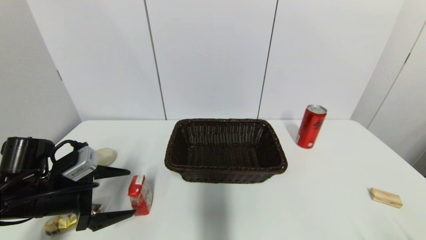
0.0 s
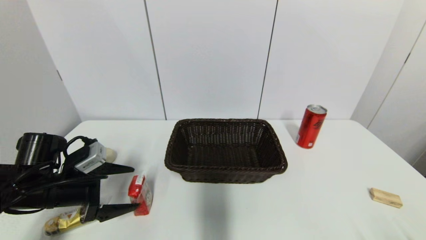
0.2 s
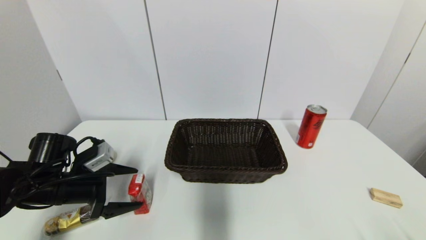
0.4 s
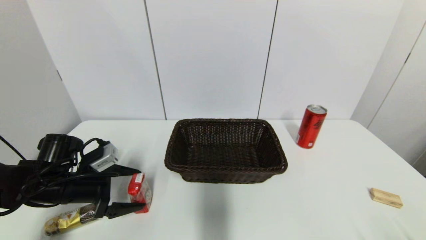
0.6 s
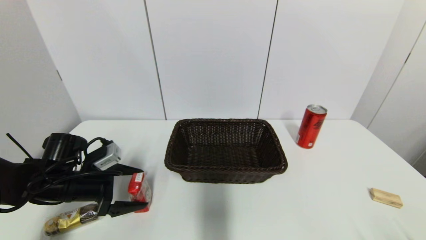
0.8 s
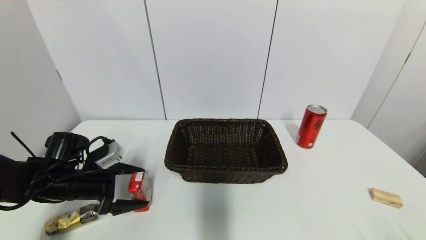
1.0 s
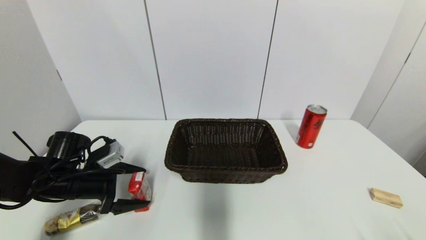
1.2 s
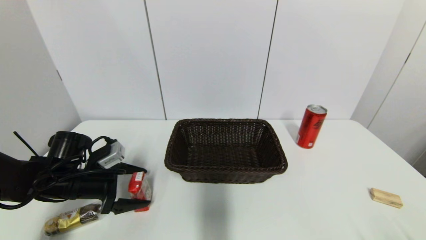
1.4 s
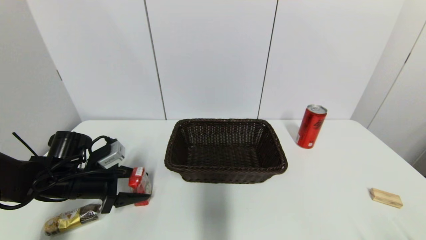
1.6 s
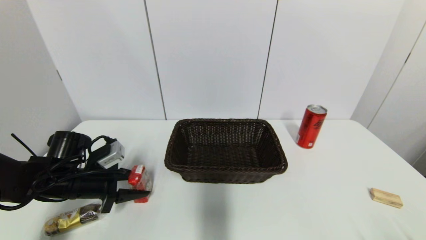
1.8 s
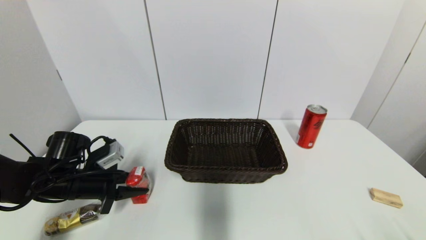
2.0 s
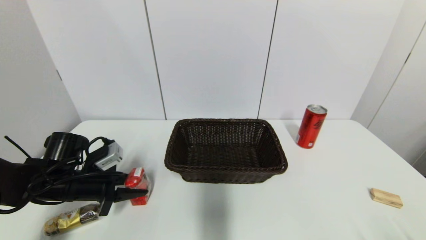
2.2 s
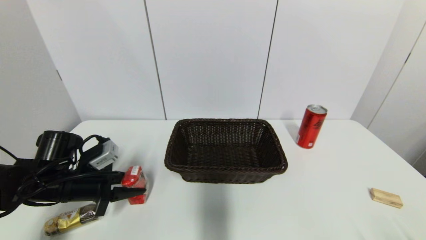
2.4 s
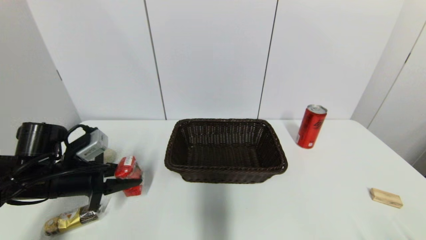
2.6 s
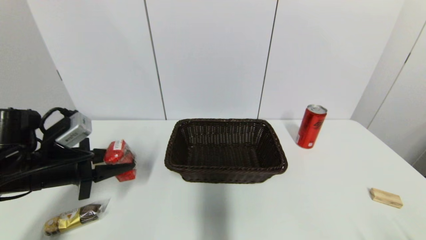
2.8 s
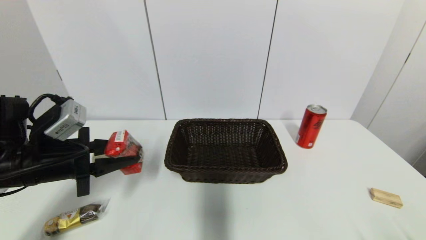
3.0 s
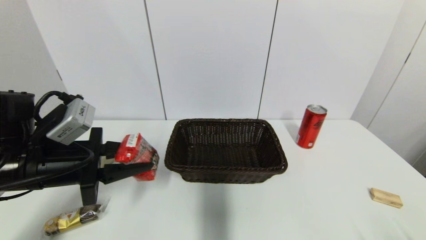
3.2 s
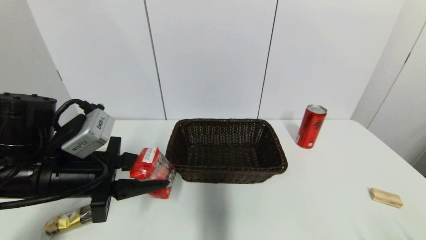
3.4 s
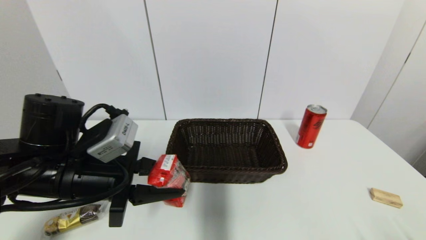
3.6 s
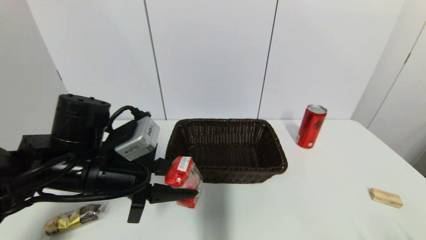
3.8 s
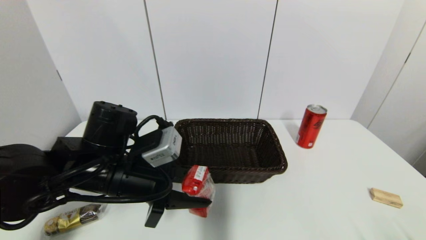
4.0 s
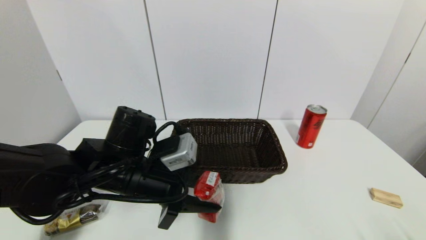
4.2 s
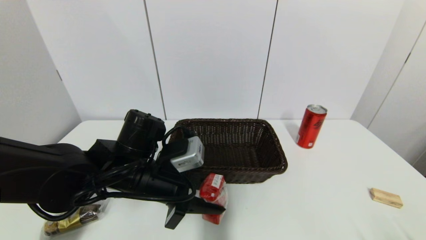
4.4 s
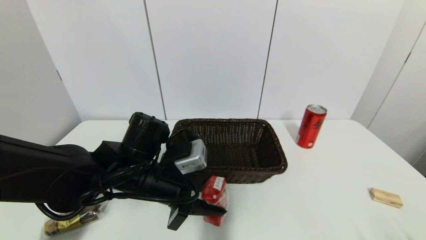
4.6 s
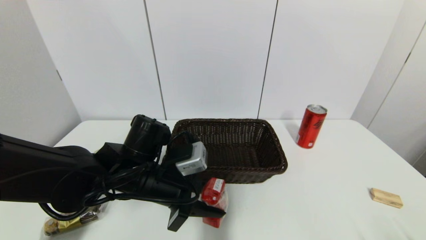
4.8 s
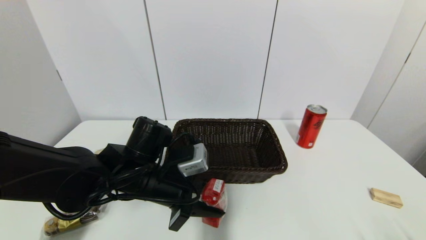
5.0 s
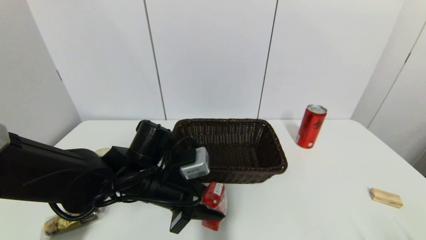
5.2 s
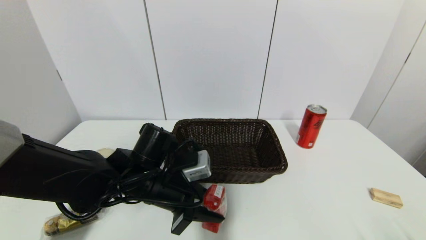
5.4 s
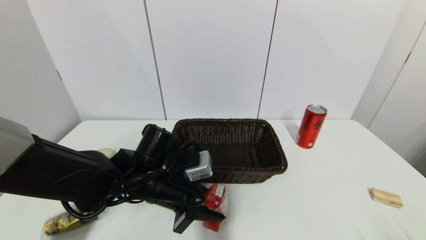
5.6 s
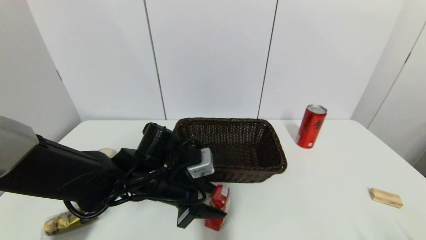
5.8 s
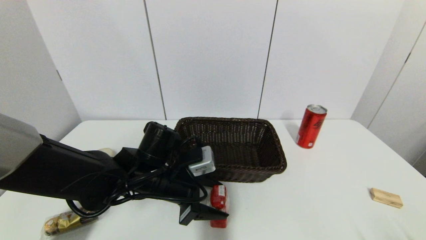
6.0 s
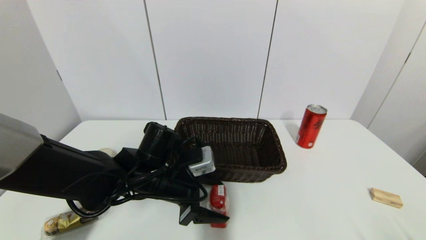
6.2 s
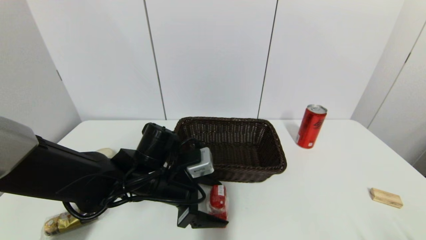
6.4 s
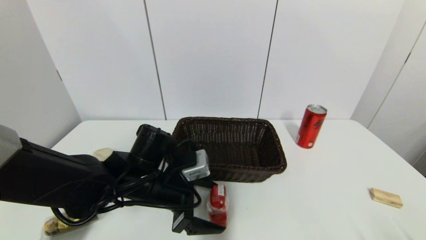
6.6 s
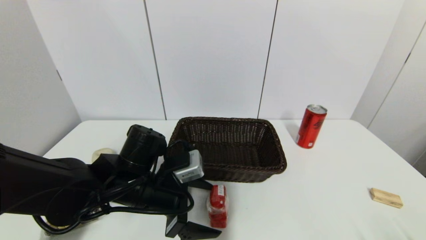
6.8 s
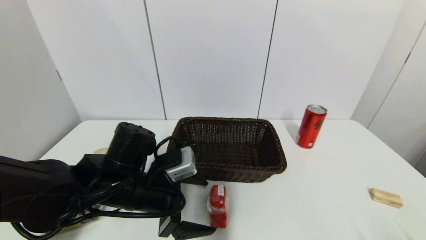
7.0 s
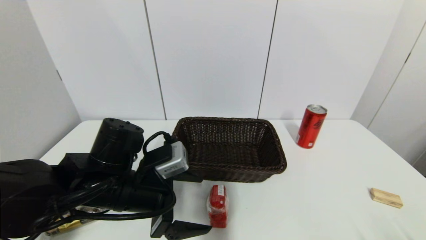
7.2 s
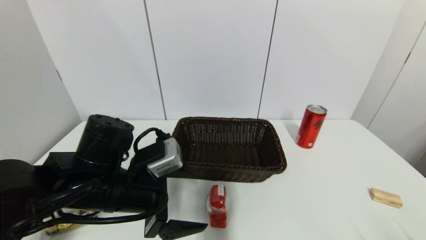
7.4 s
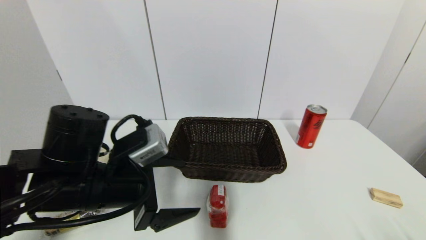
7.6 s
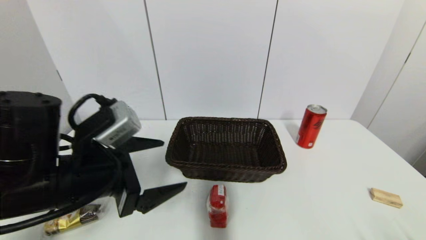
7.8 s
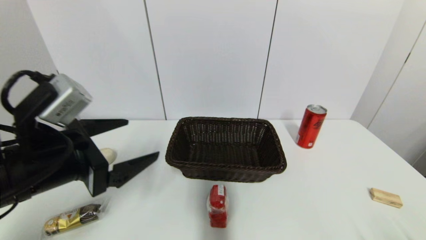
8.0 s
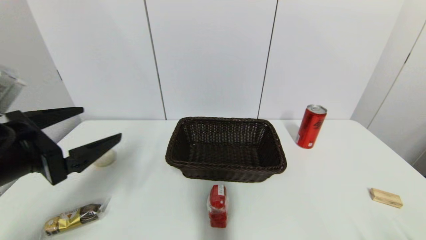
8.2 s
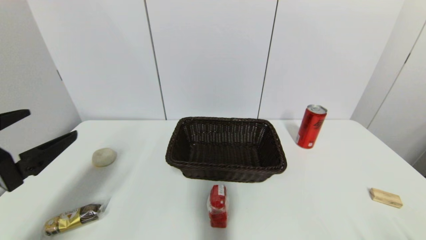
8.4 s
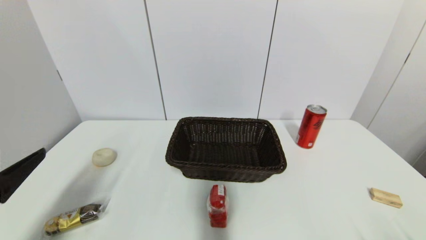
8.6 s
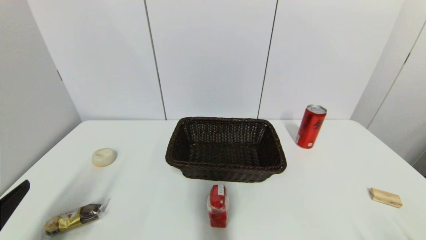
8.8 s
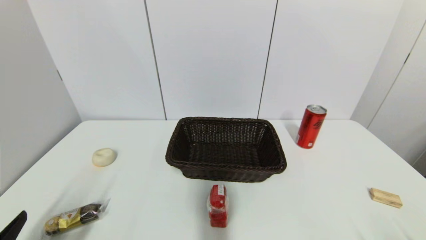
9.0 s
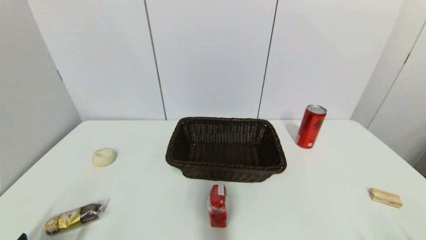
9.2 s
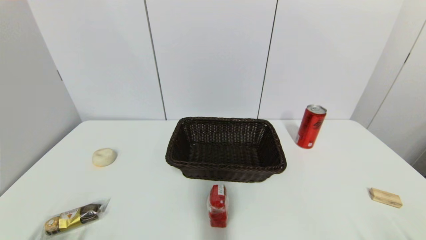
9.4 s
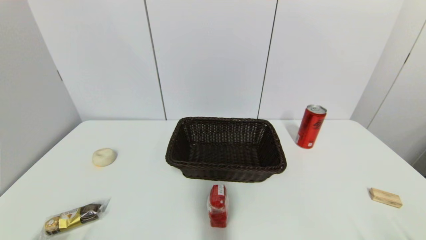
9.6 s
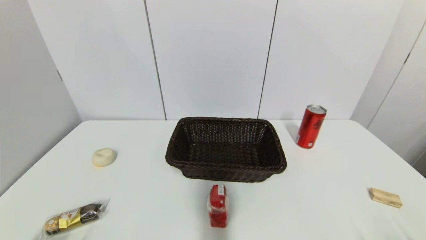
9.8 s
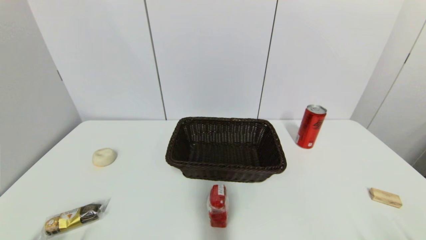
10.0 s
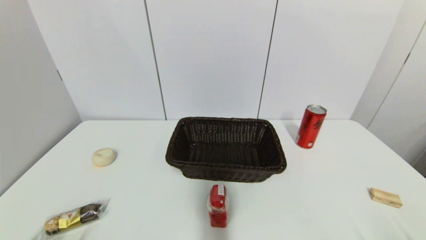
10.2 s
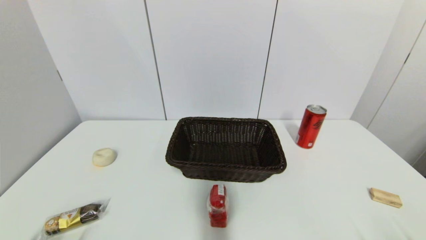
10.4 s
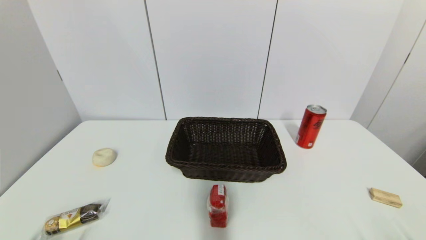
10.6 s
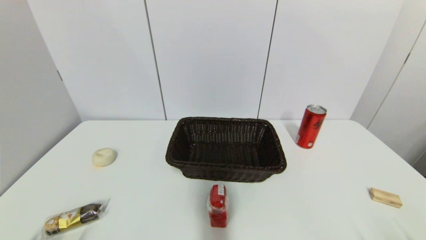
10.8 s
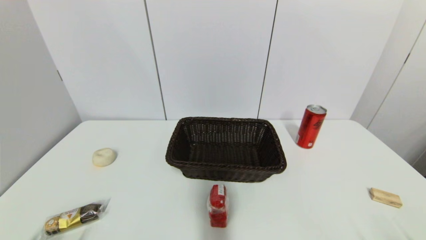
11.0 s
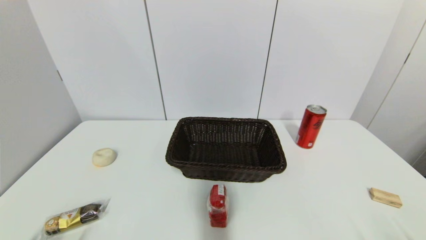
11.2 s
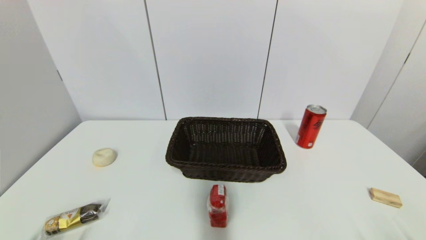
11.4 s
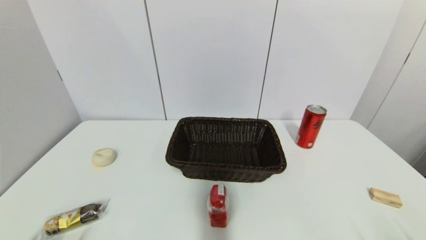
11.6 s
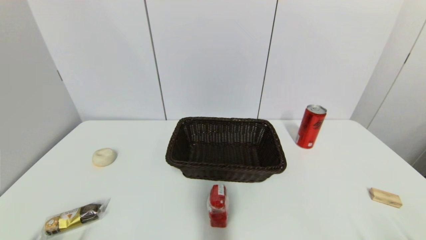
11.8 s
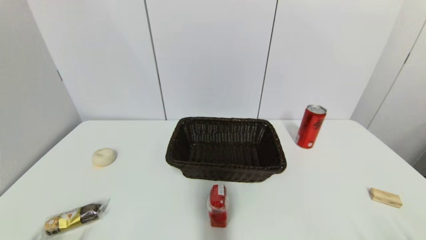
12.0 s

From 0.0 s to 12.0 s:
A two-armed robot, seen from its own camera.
Step, from 0.0 s to 2.2 s: Grasp the wangzai milk with left gripper.
Step, from 2.4 s to 6.2 s: Place the wangzai milk on the table with left gripper.
From 0.0 s to 1.6 s: The left gripper travels forward by approximately 5 cm, and closes its fingers.
From 1.6 s to 3.0 s: The left gripper shifts some 10 cm upward and backward, and closes.
From 3.0 s to 4.4 s: The left gripper heads to the right, covering about 15 cm.
From 4.4 s to 6.0 s: The left gripper opens up.
From 6.0 s to 7.6 s: The left gripper moves upward, backward and to the left, about 10 cm, and opens up.
From 7.6 s to 9.0 s: The left gripper is displaced backward and to the left by roughly 20 cm.
From 9.0 s to 10.4 s: The left gripper moves downward, some 5 cm.
From 10.4 s to 12.0 s: Neither gripper changes place.

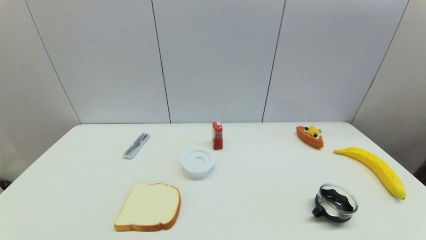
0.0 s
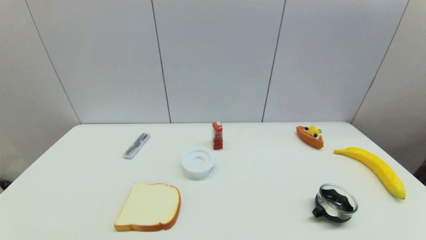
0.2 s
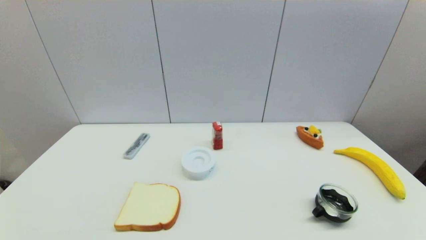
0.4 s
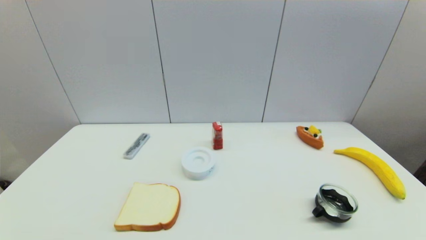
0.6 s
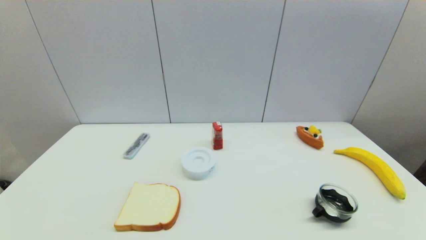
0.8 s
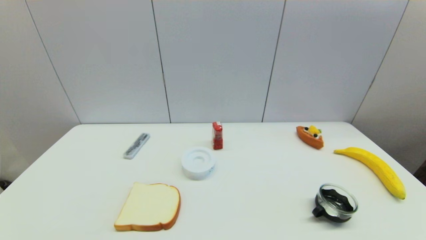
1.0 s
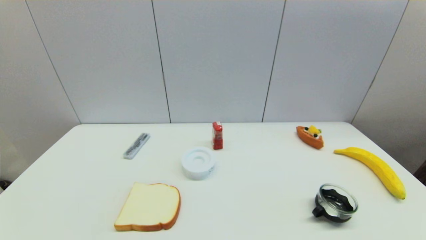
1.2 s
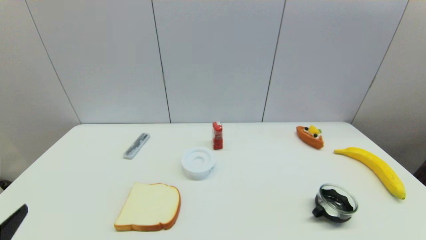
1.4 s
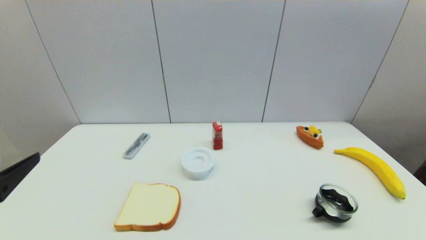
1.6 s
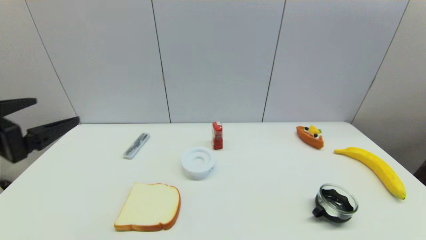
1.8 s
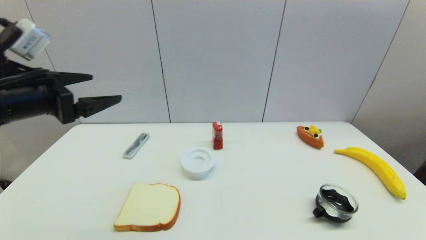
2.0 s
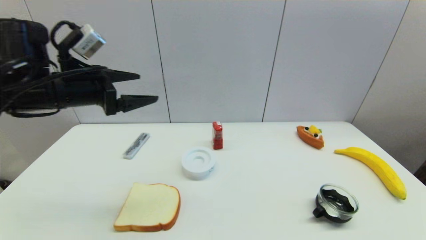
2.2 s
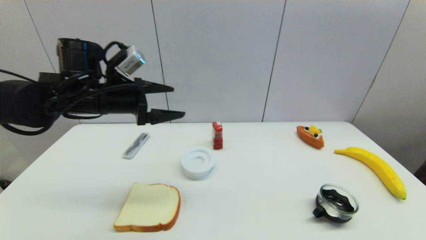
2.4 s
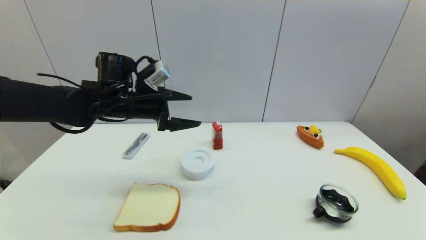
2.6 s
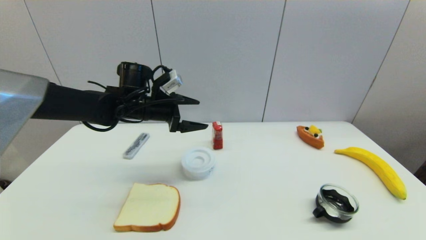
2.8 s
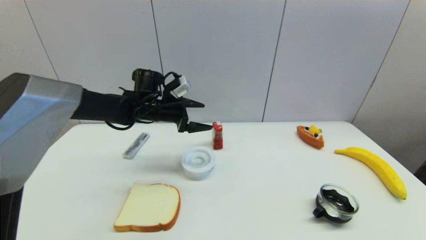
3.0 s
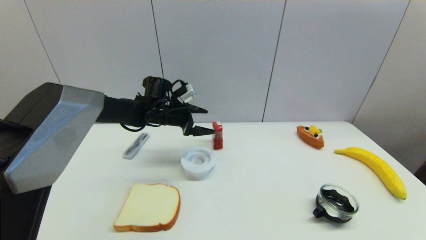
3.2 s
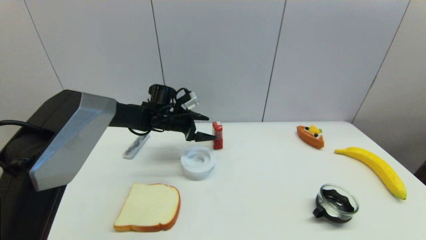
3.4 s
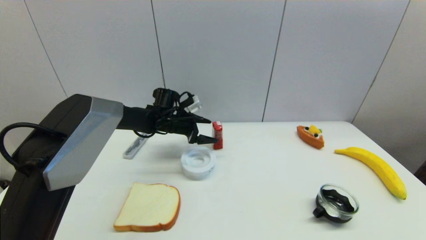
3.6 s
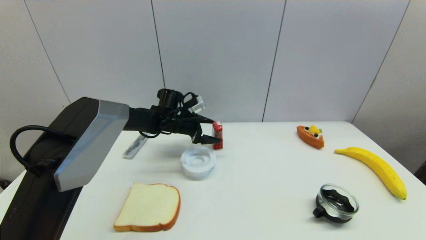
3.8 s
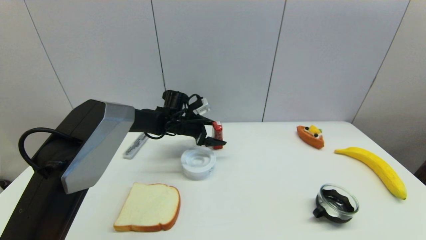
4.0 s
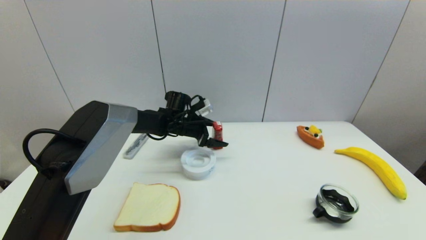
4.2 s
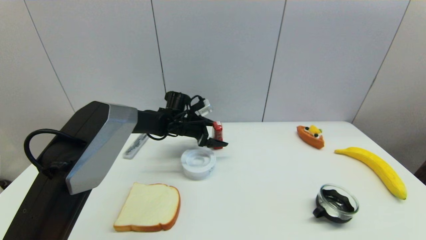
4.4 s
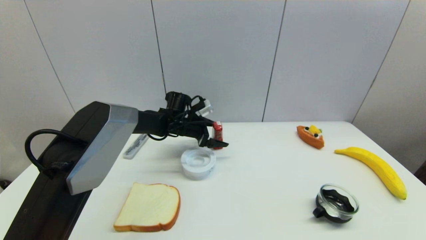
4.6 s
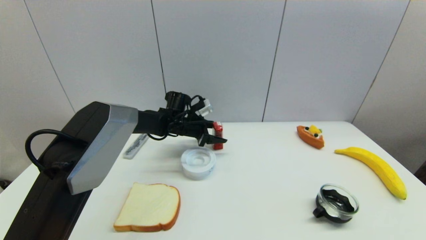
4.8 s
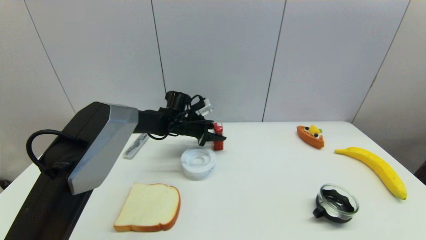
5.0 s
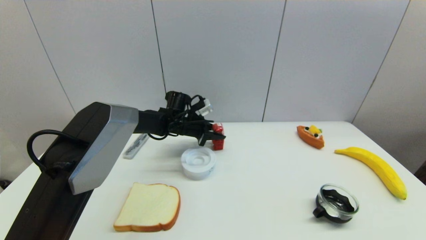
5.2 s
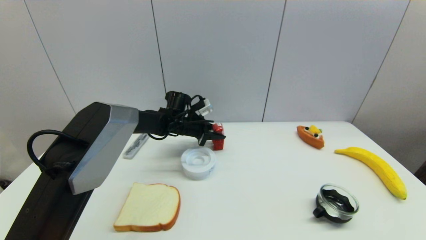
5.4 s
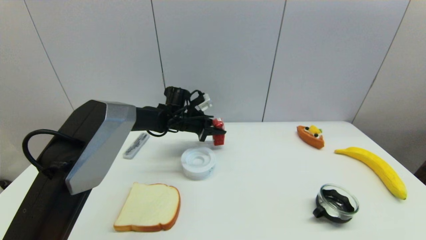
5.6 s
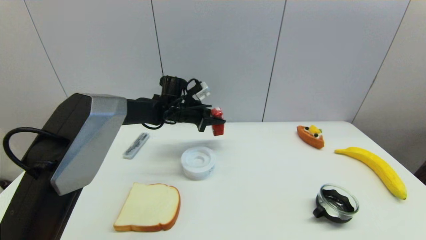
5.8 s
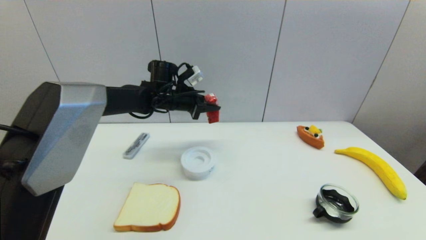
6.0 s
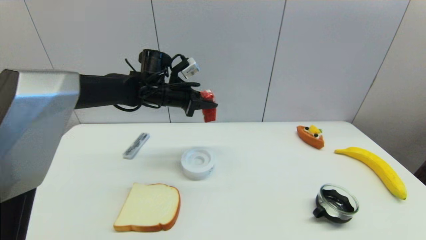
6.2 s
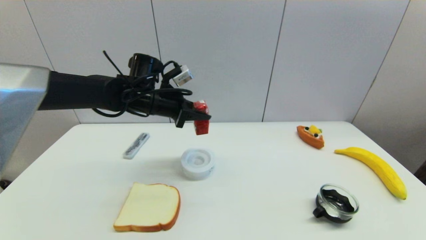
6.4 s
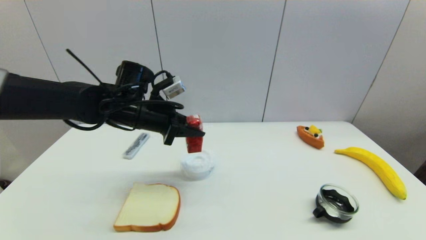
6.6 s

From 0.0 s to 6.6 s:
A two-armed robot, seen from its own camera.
Step, from 1.4 s to 5.2 s: Grasp the wangzai milk with left gripper.
From 0.0 s to 1.6 s: The left gripper shifts about 20 cm upward and forward.
From 1.6 s to 3.2 s: The left gripper moves forward and to the right, roughly 40 cm.
From 3.2 s to 5.0 s: The left gripper shifts by approximately 5 cm, and closes.
From 5.0 s to 6.6 s: The left gripper shifts about 20 cm backward, upward and to the left.
